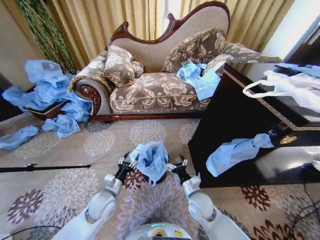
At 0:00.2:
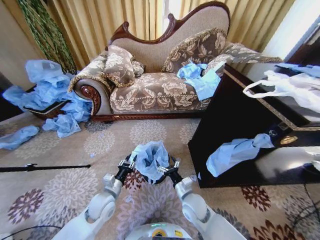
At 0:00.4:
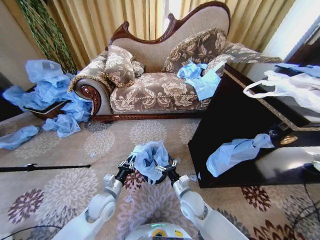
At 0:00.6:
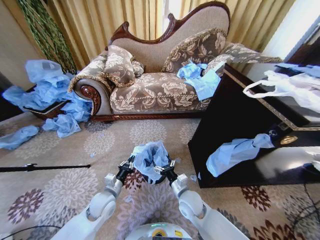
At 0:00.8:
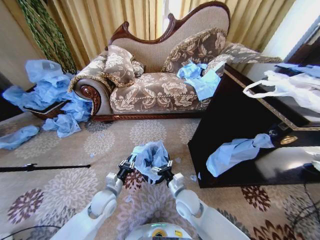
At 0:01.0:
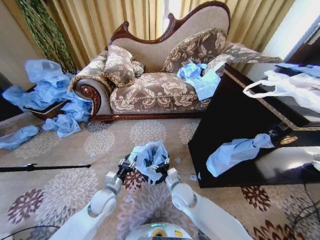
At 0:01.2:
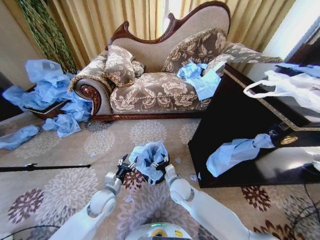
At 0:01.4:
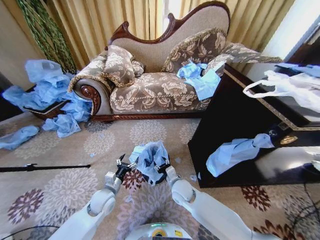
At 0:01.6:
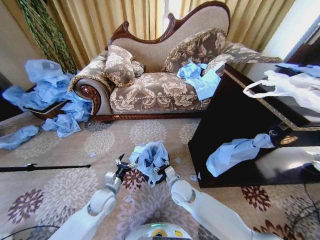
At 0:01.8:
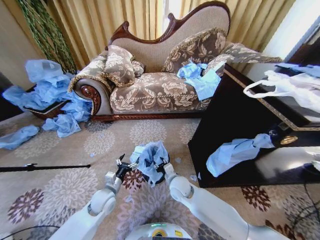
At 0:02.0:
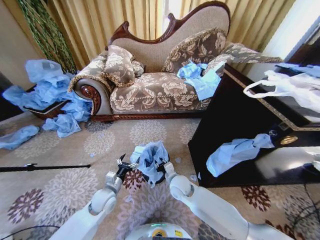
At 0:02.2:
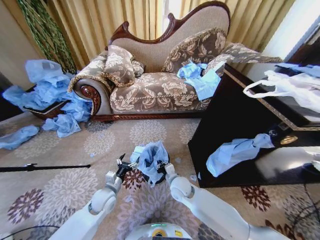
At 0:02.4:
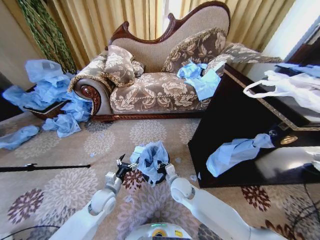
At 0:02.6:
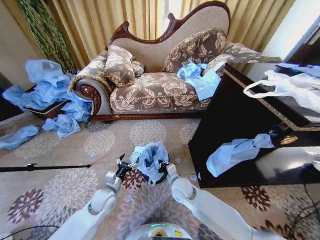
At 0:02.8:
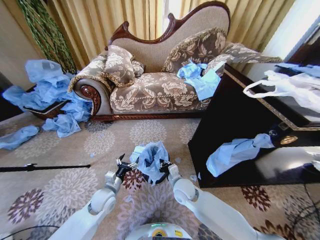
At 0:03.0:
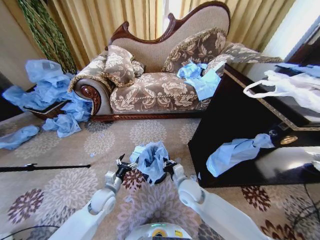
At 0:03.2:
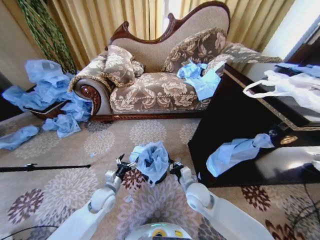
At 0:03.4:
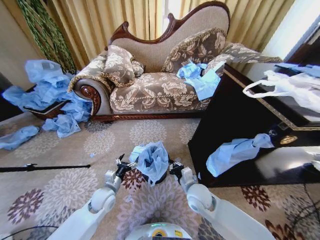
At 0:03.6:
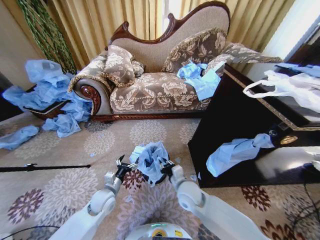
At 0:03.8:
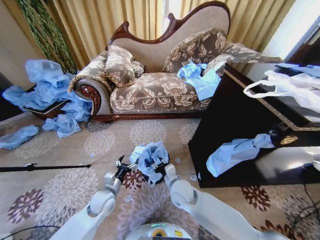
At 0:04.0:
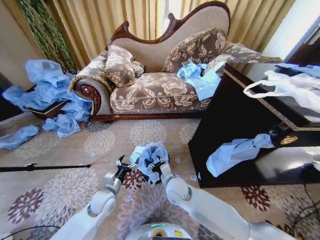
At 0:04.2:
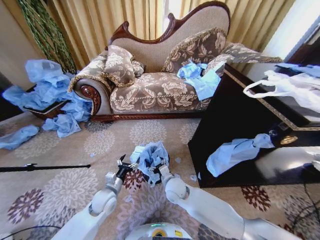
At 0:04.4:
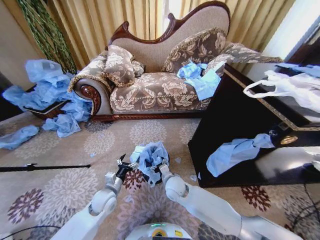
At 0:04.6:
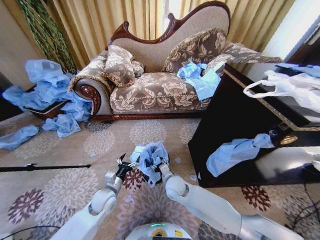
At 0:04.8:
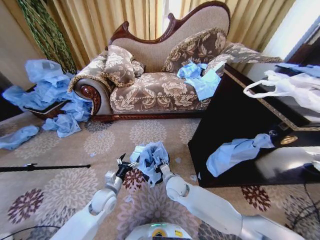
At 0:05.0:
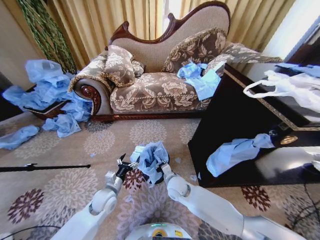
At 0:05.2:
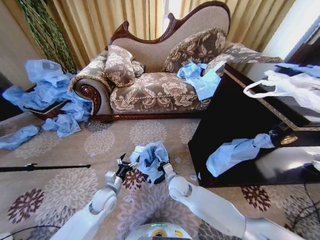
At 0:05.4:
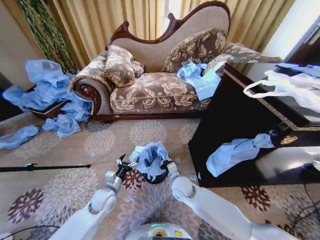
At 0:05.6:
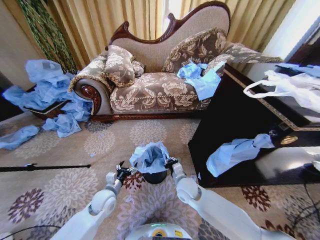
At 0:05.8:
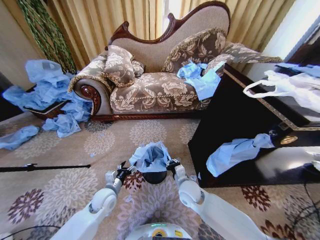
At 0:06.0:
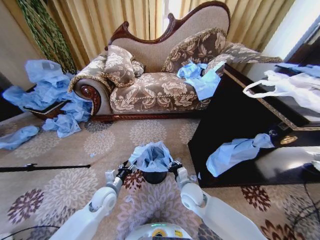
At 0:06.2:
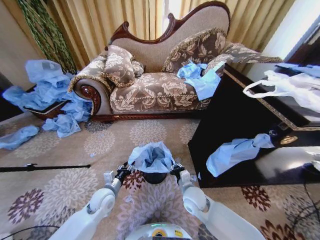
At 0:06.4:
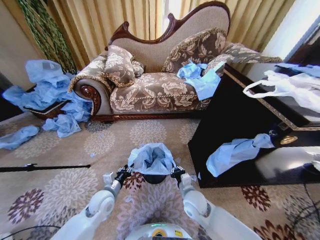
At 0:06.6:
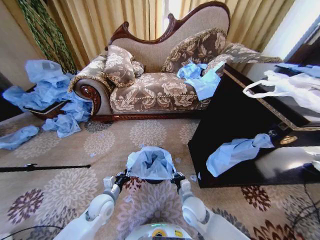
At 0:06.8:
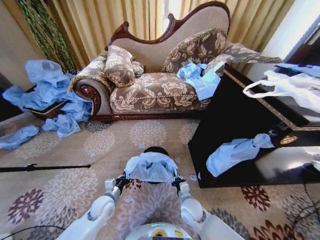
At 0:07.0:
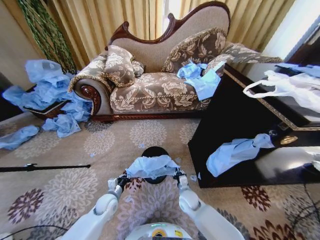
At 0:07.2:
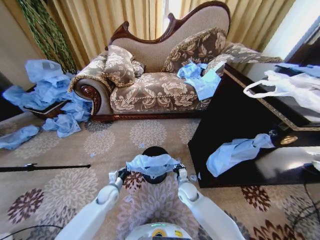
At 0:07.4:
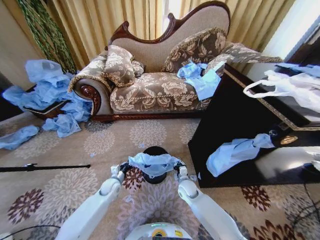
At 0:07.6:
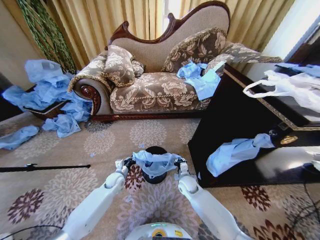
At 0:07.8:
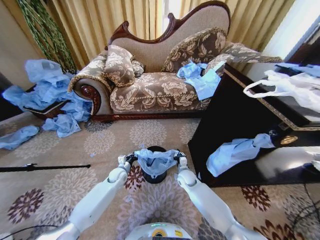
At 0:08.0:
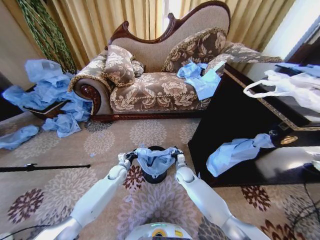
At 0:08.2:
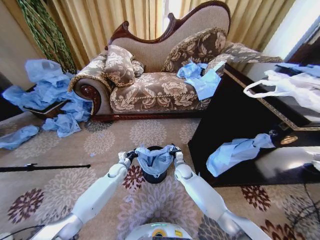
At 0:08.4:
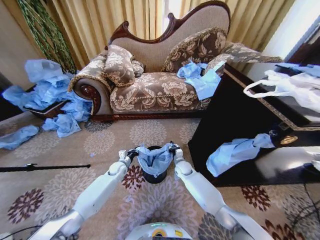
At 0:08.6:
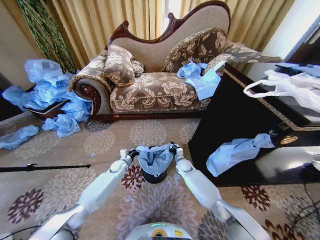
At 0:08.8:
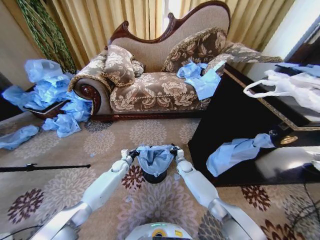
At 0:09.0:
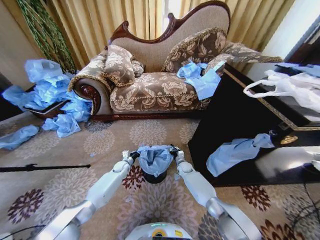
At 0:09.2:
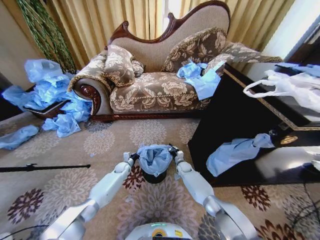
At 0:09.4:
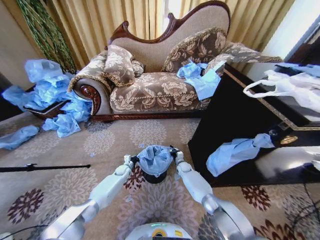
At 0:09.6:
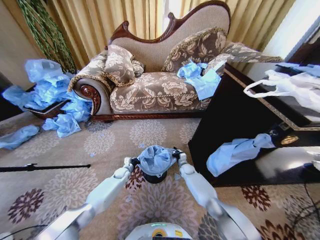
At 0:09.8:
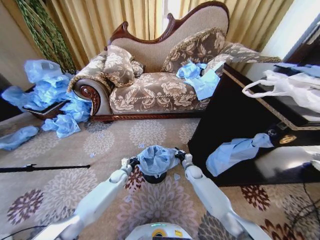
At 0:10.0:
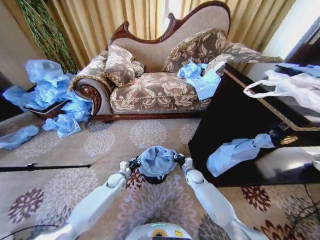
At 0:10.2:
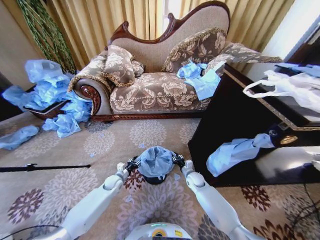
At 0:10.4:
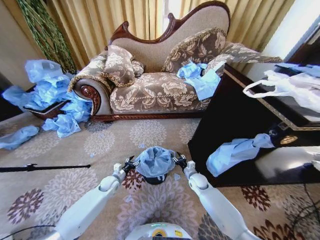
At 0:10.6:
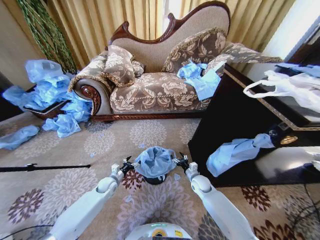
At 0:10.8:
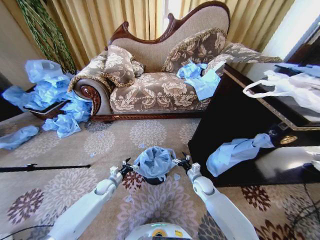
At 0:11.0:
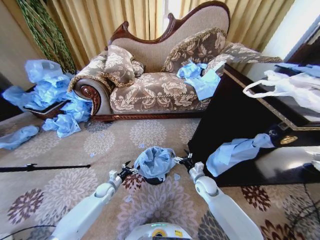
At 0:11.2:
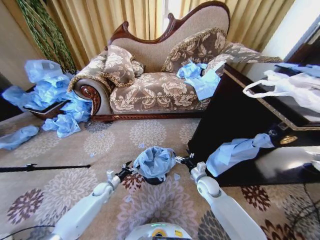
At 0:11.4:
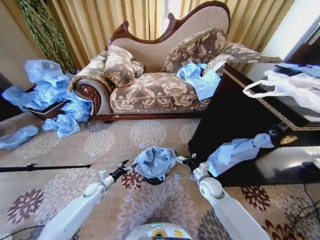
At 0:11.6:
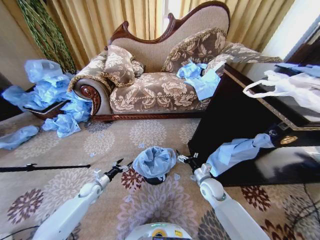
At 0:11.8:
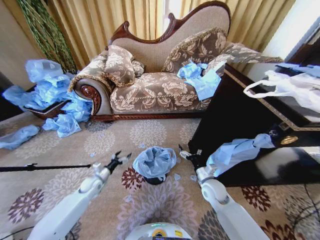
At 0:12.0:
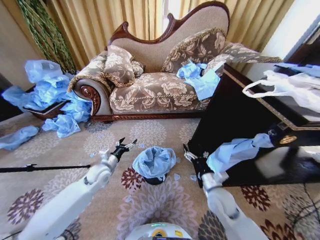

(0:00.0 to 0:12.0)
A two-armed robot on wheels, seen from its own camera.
Task of the whole recording: Place a garbage bag over the trash bin.
0:00.0 - 0:01.6: The right gripper is displaced to the left by some 10 cm. The left gripper opens.
0:01.6 - 0:03.0: The right gripper closes.
0:03.0 - 0:04.4: The right gripper heads to the left, covering about 5 cm, and opens up.
0:04.4 - 0:06.0: The right gripper travels to the right by approximately 5 cm, and closes its fingers.
0:06.0 - 0:07.6: The right gripper heads downward and forward, covering some 10 cm, while the left gripper heads forward and downward, covering approximately 15 cm, and closes its fingers.
0:07.6 - 0:09.0: The two grippers go roughly 10 cm forward.
0:09.0 - 0:10.4: The right gripper heads backward and to the right, covering roughly 10 cm, and opens up; the left gripper shifts about 10 cm backward, and opens up.
0:10.4 - 0:12.0: The left gripper moves upward, approximately 15 cm. The right gripper travels upward and backward by approximately 20 cm, and opens.

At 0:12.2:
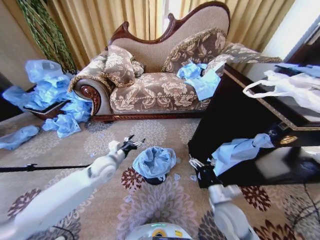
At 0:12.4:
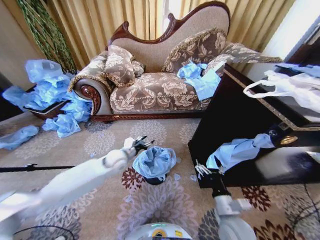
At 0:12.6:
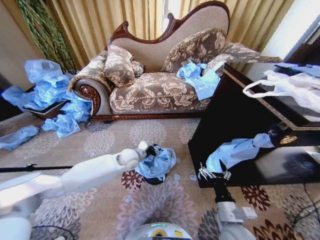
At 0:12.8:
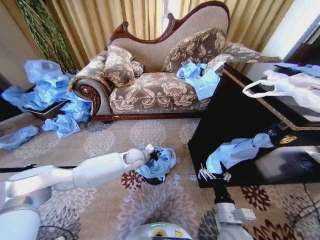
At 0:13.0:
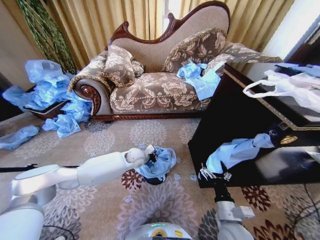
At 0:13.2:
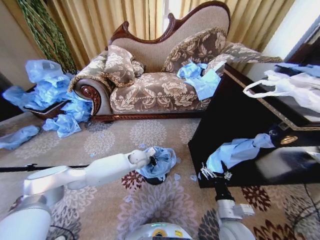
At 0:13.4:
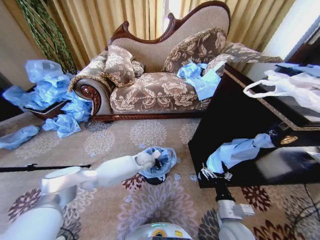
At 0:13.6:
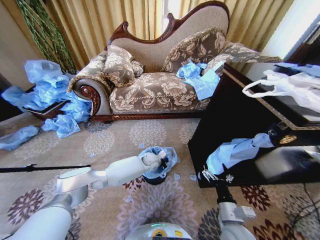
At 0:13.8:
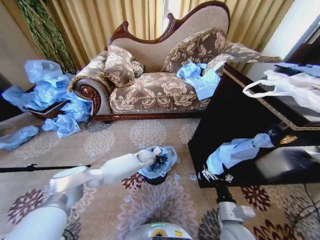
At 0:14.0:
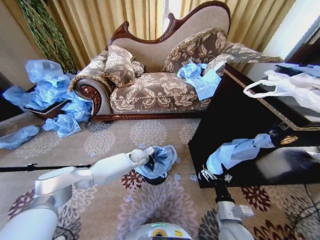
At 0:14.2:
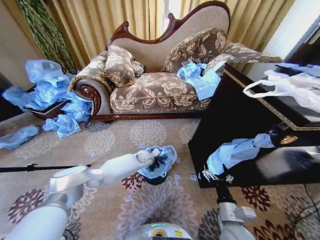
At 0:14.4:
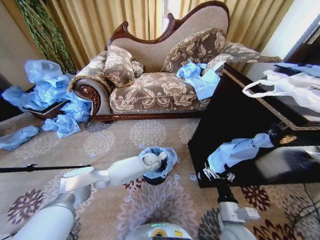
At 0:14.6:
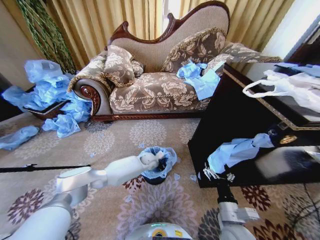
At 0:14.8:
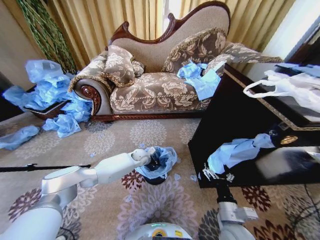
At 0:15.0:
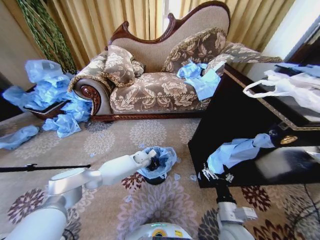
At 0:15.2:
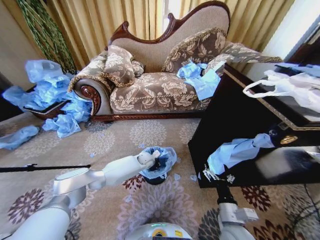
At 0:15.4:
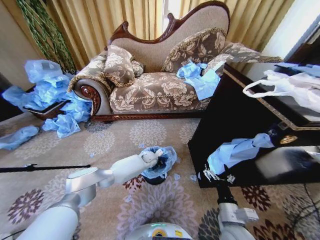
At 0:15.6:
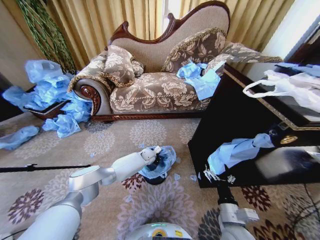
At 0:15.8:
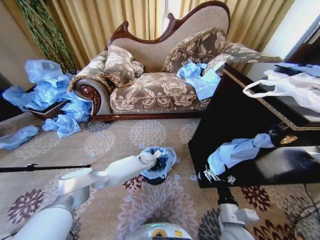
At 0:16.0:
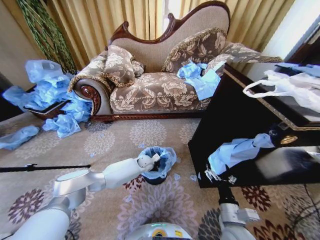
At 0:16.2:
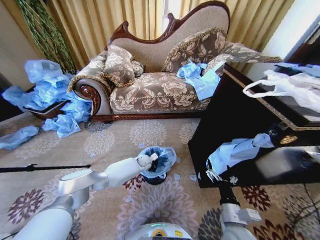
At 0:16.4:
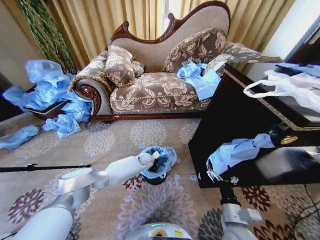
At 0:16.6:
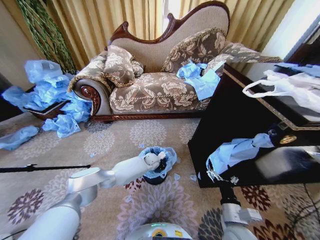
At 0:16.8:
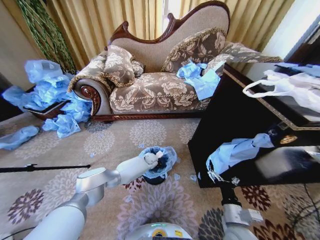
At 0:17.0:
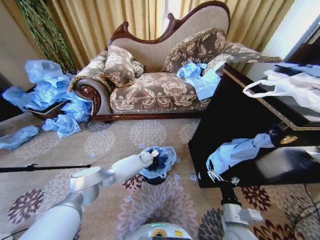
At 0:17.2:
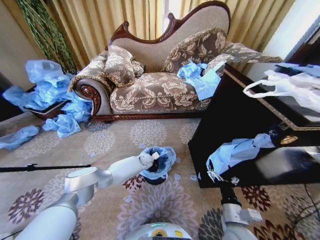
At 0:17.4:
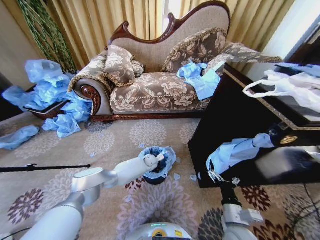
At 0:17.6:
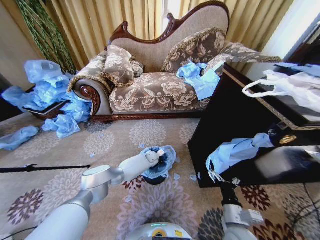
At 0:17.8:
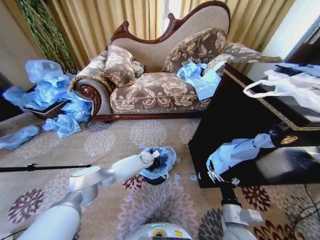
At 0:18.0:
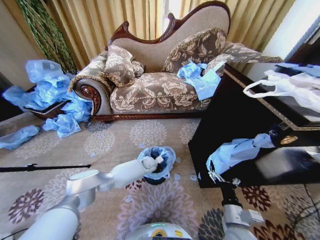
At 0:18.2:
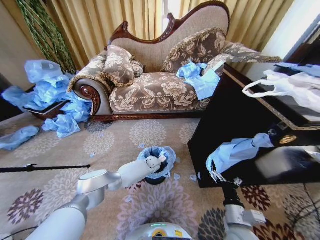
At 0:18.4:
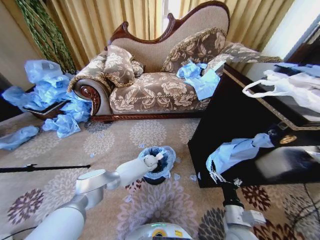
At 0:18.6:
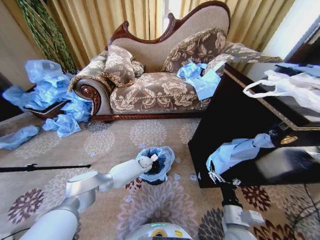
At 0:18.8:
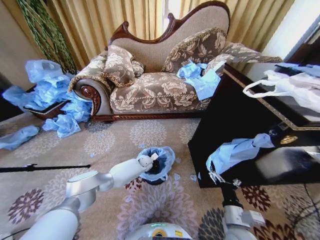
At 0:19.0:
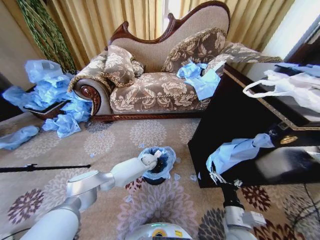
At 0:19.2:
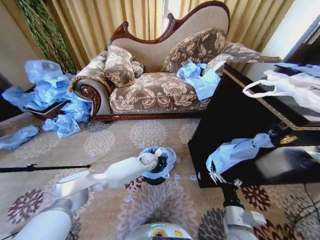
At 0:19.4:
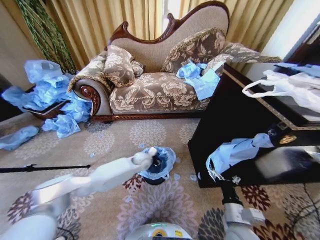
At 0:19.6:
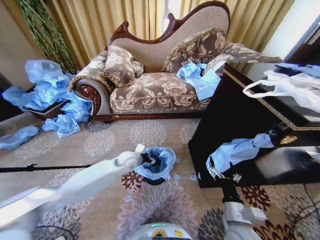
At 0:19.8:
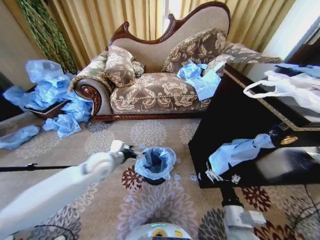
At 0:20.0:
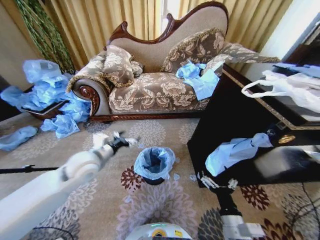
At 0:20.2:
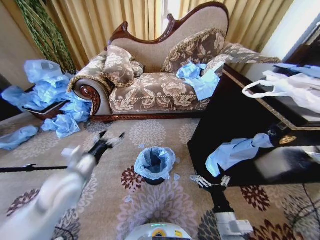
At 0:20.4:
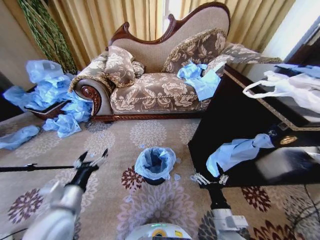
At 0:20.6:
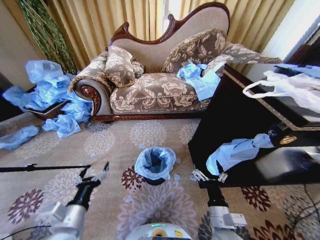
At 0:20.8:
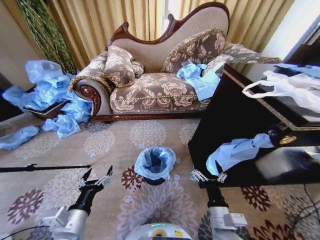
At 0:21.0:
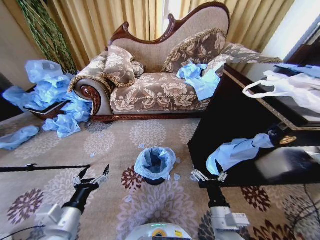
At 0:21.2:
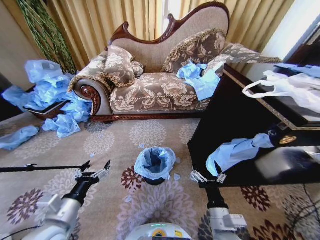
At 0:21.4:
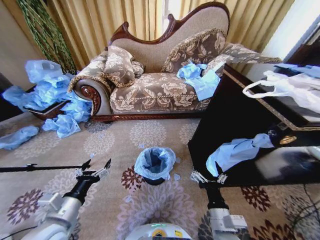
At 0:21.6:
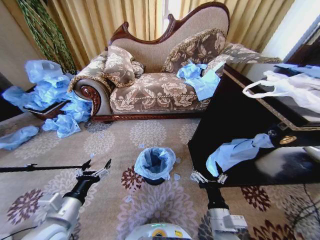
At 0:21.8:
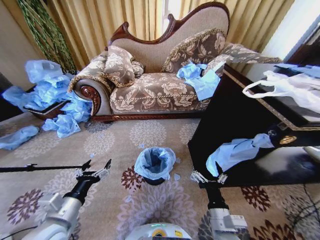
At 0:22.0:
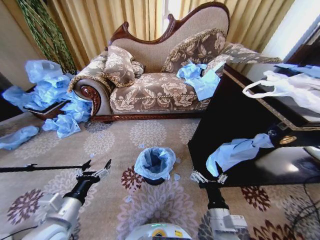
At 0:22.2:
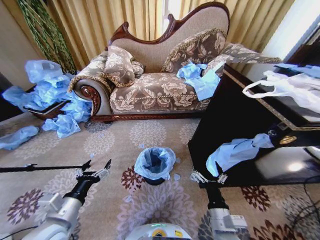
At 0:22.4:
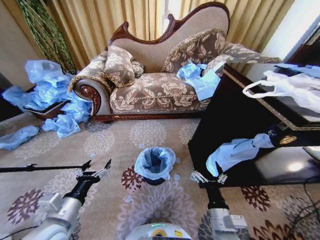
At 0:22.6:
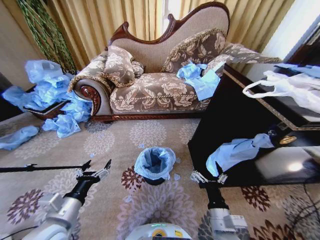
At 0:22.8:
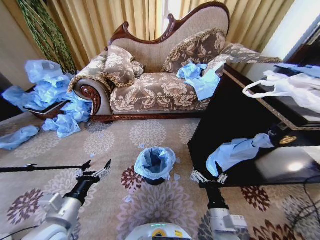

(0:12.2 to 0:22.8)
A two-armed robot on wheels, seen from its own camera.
Task of the whole recording: Place a garbage bag over the trash bin.
0:12.2 - 0:13.8: The left gripper heads to the right, forward and downward, covering roughly 25 cm, and closes its fingers. Meanwhile the right gripper goes some 5 cm backward.
0:13.8 - 0:15.2: The left gripper moves left and right over some 10 cm, changing direction 2 times.
0:15.2 - 0:16.8: The left gripper changes place by approximately 5 cm.
0:16.8 - 0:18.2: The grippers stay close to where they were, moving slightly.
0:18.2 - 0:19.8: The left gripper is displaced upward, to the left and backward by approximately 35 cm, and opens its fingers.
0:19.8 - 0:21.2: The right gripper travels to the left by about 5 cm, while the left gripper moves backward, some 25 cm.
0:21.2 - 0:22.8: Both grippers stay put.
